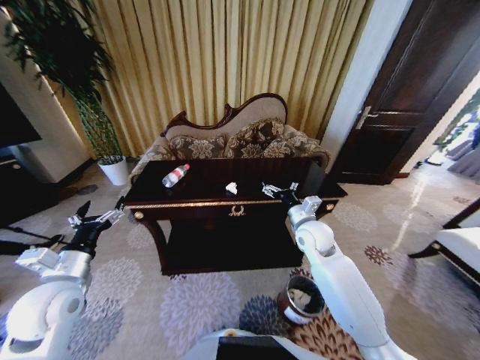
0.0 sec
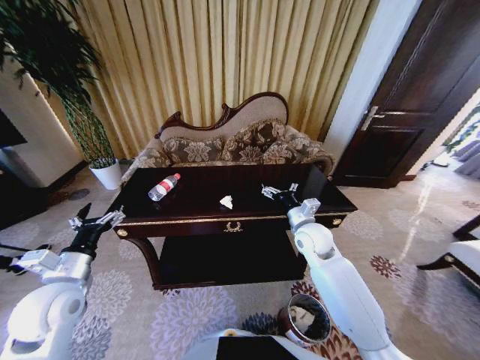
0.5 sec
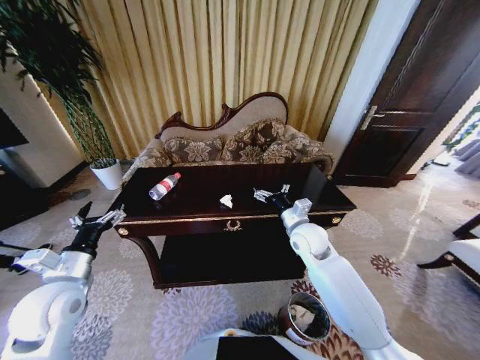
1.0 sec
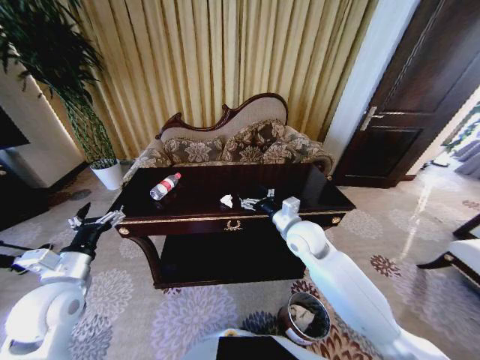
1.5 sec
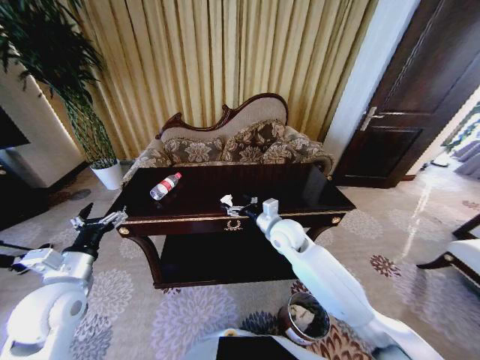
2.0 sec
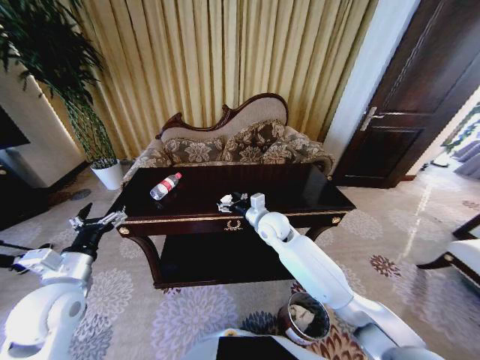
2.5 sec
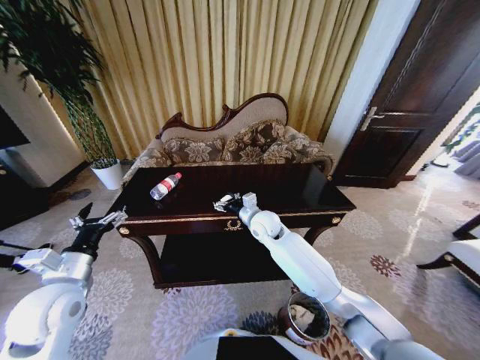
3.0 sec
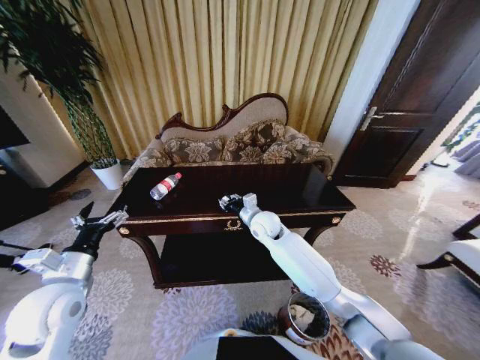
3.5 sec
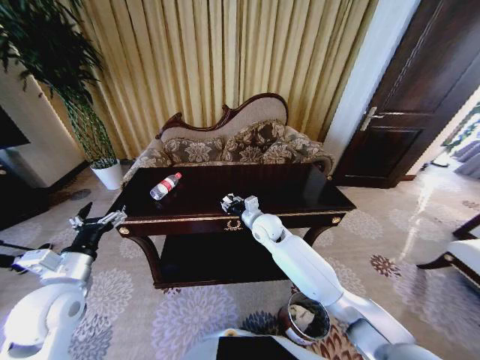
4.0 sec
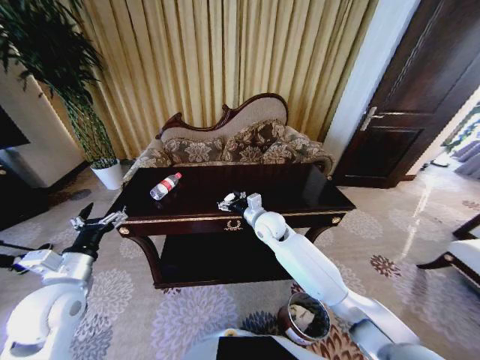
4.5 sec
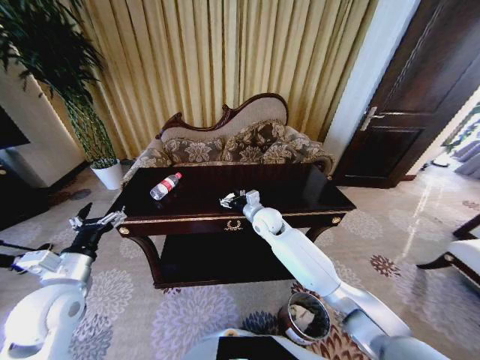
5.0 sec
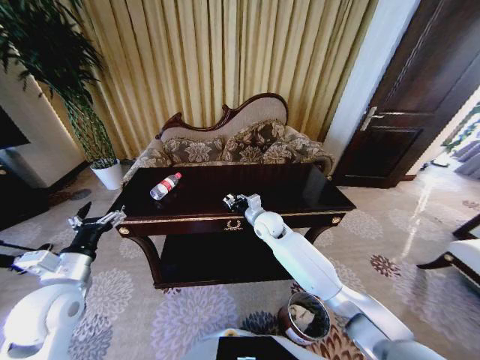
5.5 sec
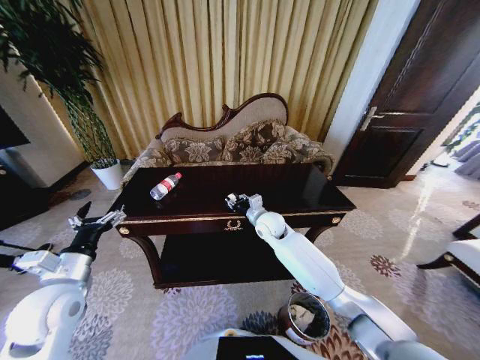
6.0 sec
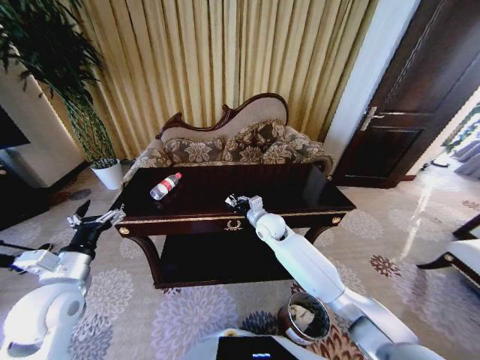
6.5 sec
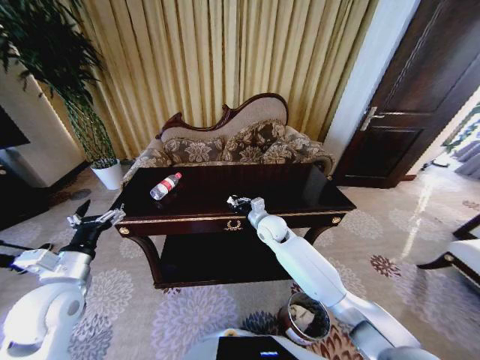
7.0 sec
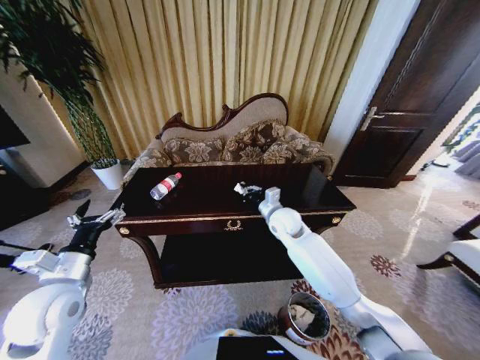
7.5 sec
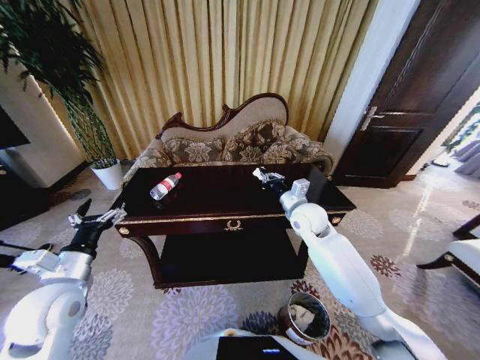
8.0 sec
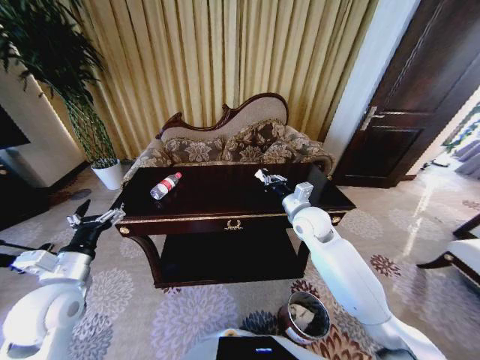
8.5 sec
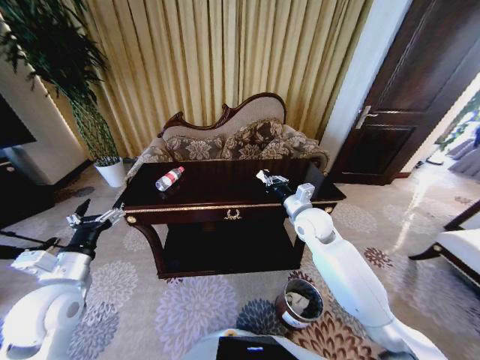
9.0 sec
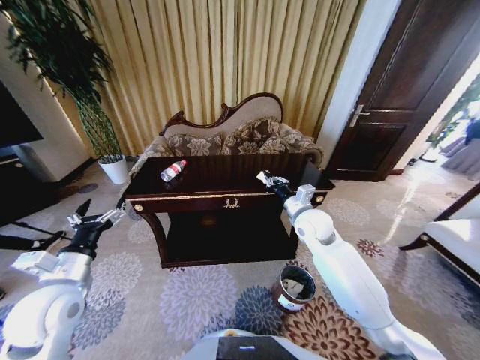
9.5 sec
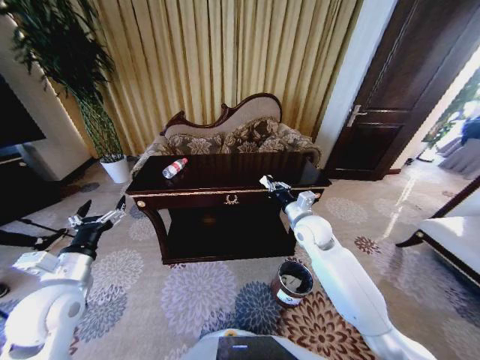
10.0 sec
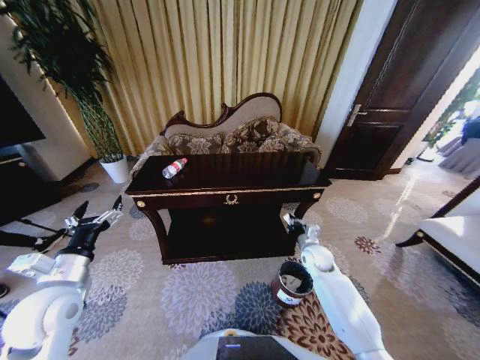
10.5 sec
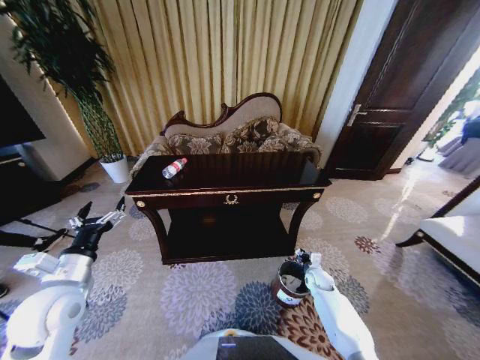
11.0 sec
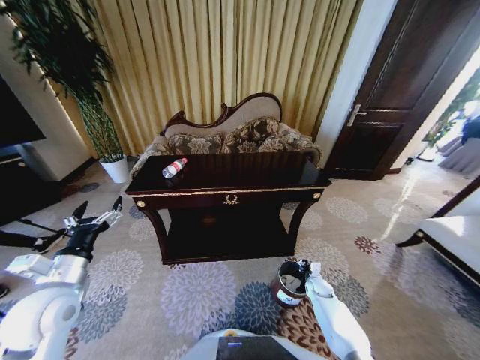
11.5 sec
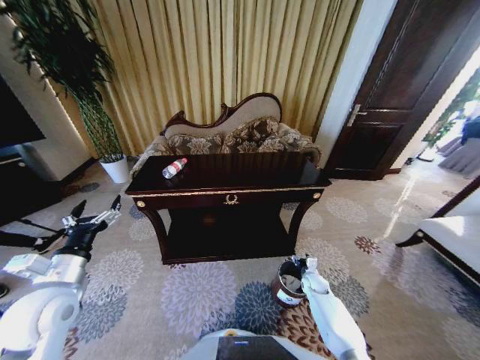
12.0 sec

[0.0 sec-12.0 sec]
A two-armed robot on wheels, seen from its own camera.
Task of the whole recording: Move to the front of the table and place the trash on the table into the trash bin.
0.0 sec to 2.0 sec: The right gripper moves to the left, approximately 10 cm.
2.0 sec to 4.0 sec: The right gripper shifts by some 5 cm, and closes.
4.0 sec to 6.0 sec: The right gripper opens and closes again.
6.0 sec to 8.0 sec: The right gripper heads to the right and upward, covering about 10 cm, and closes up.
10.0 sec to 12.0 sec: The right gripper shifts about 30 cm downward, and opens its fingers.

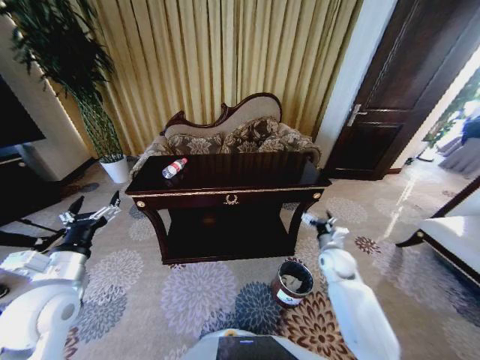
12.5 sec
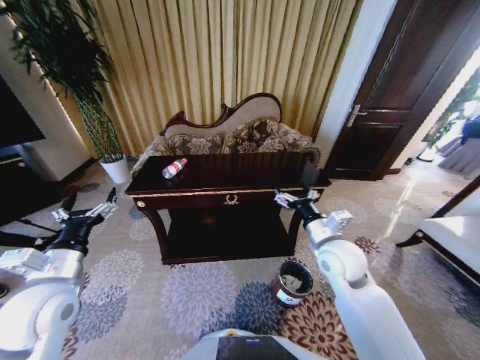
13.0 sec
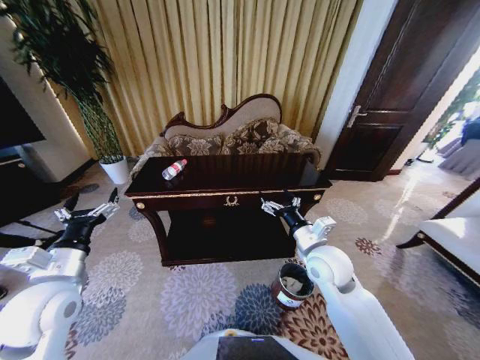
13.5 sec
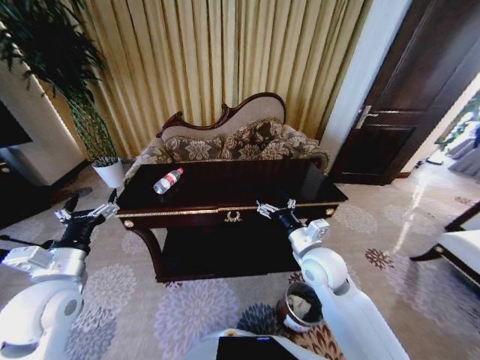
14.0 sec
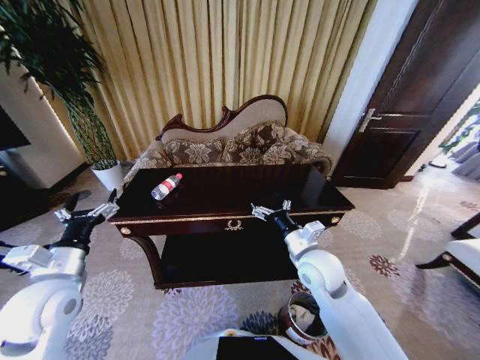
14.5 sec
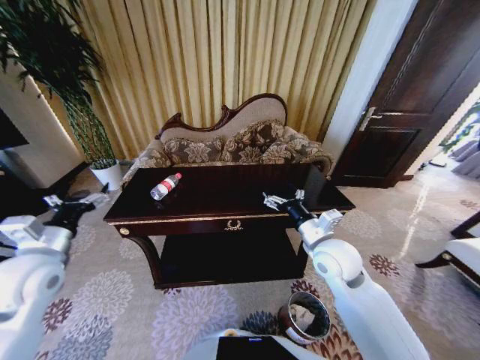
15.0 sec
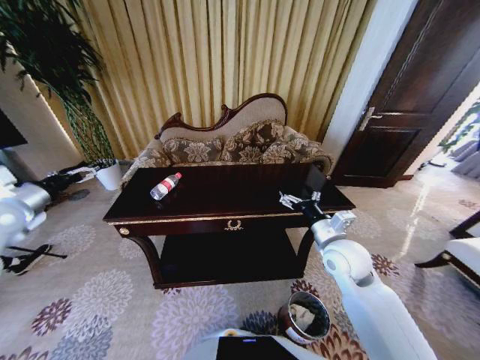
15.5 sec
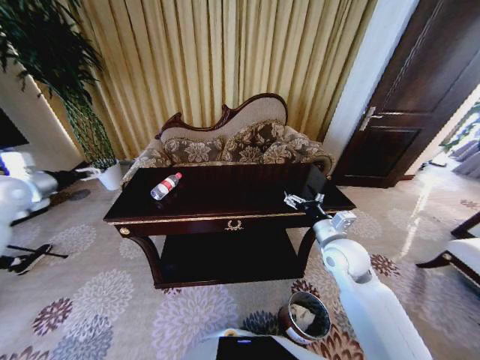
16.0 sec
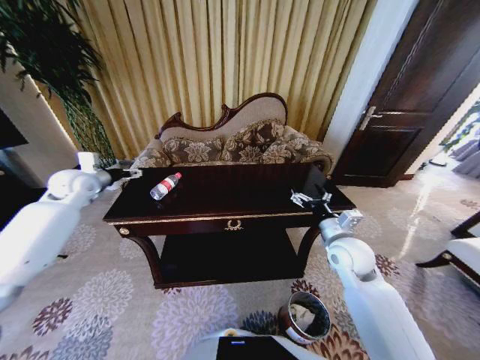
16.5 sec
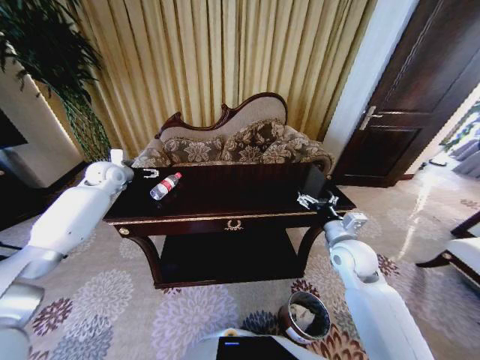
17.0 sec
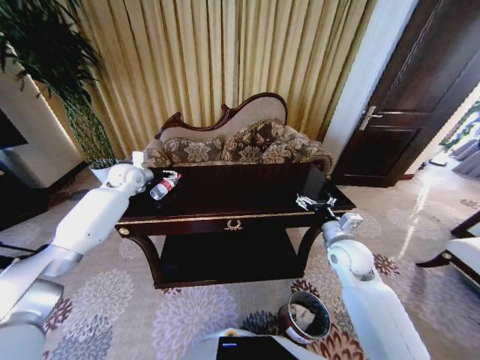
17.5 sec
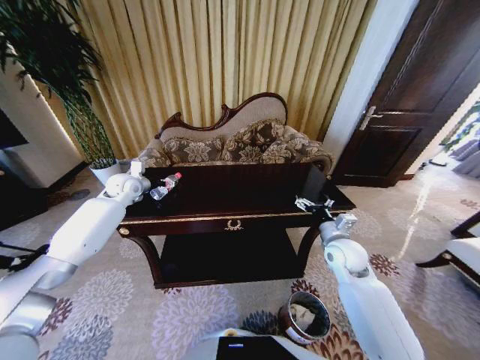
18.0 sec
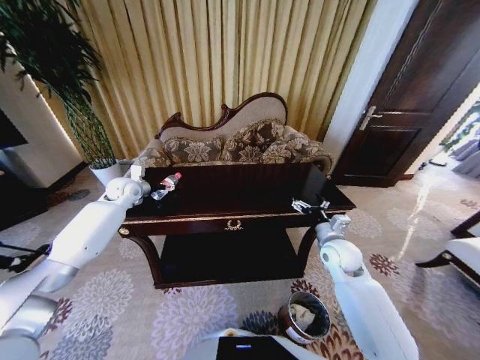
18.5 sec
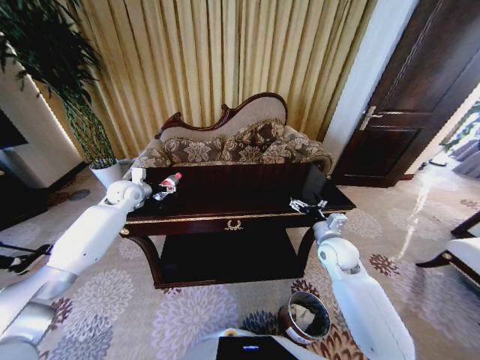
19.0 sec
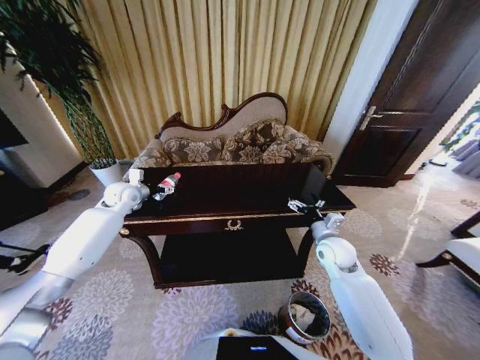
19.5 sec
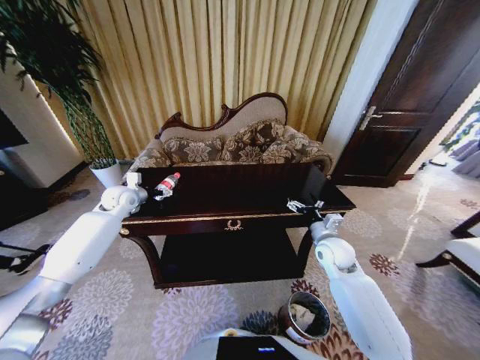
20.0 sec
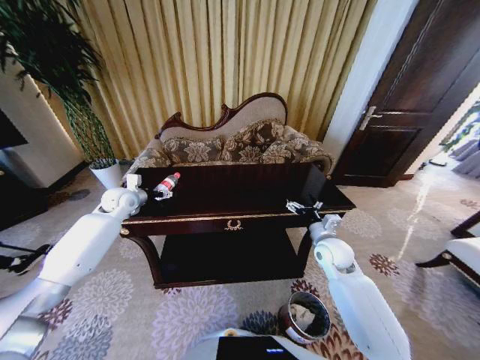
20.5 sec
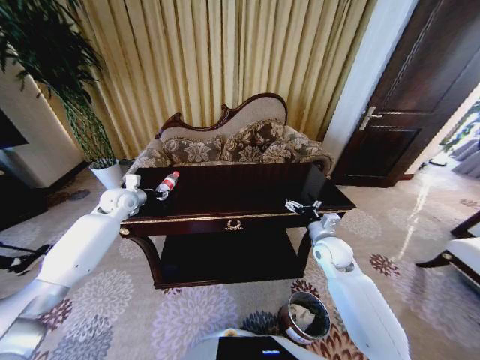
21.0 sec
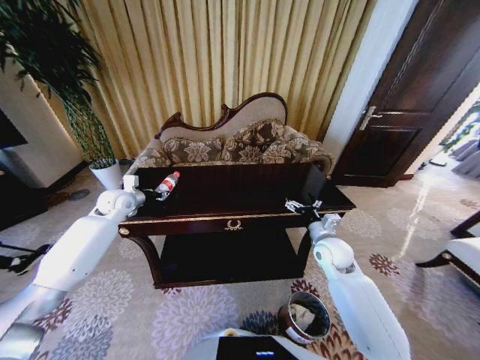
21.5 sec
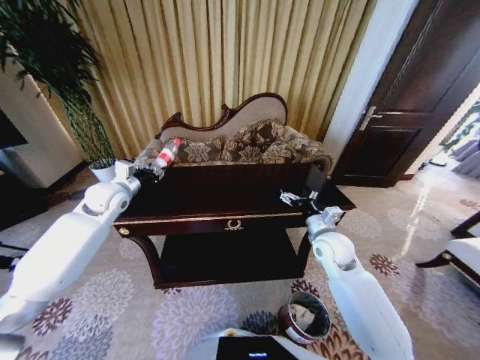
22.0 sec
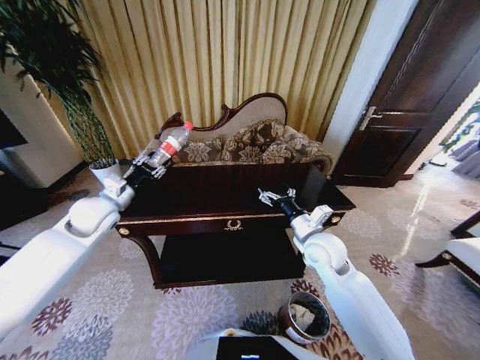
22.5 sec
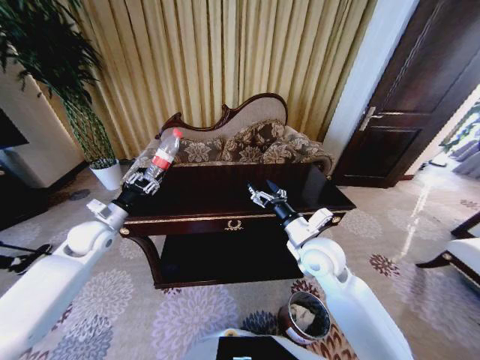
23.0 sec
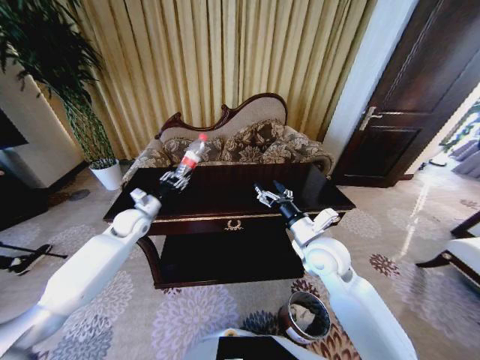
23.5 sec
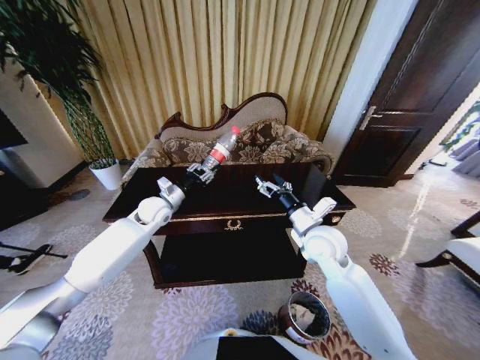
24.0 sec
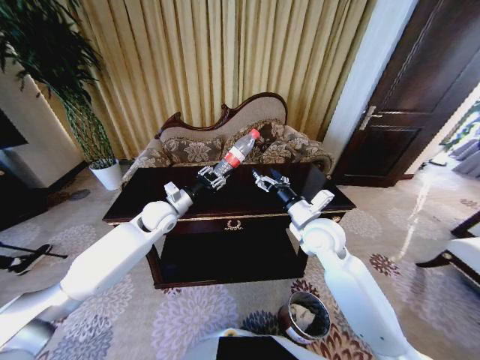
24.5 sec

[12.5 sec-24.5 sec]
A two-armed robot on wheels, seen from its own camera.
Task of the whole recording: Move to the front of the table and place the trash on the table into the trash bin.
12.5 sec to 14.5 sec: The right gripper travels to the left, upward and backward by approximately 20 cm.
14.5 sec to 16.5 sec: The left gripper is displaced forward by some 30 cm, while the right gripper is displaced to the right by some 10 cm.
16.5 sec to 18.5 sec: The right gripper travels downward by approximately 5 cm. Meanwhile the left gripper shifts some 10 cm to the right, downward and forward.
18.5 sec to 20.5 sec: The grippers make only small movements.
20.5 sec to 22.5 sec: The left gripper is displaced backward and upward by some 10 cm, and closes. The right gripper moves upward and to the left, approximately 10 cm.
22.5 sec to 24.5 sec: The left gripper travels to the right and downward by roughly 15 cm.

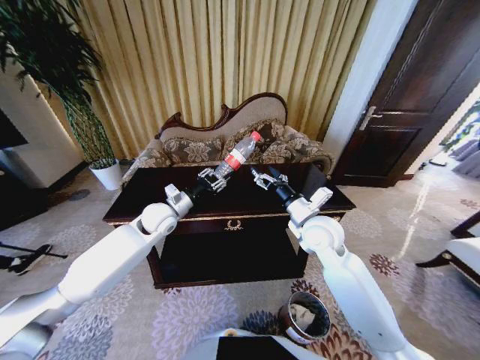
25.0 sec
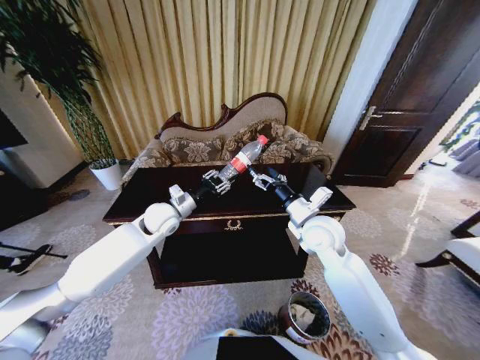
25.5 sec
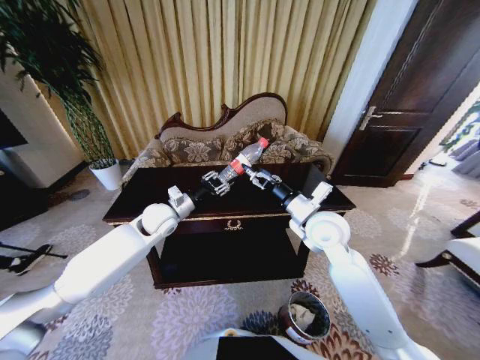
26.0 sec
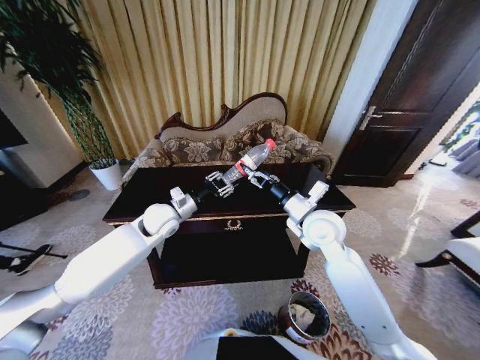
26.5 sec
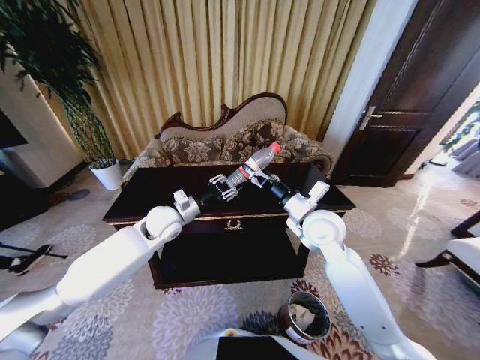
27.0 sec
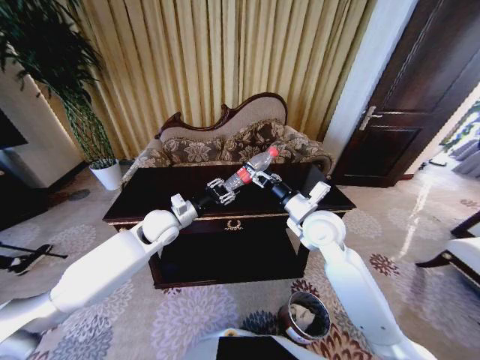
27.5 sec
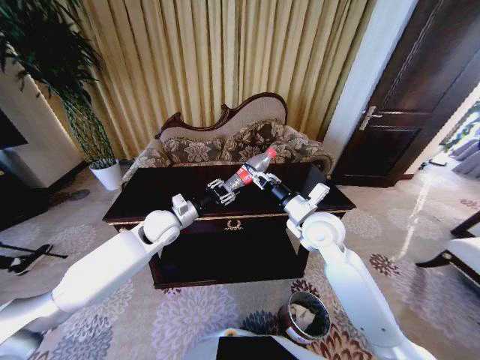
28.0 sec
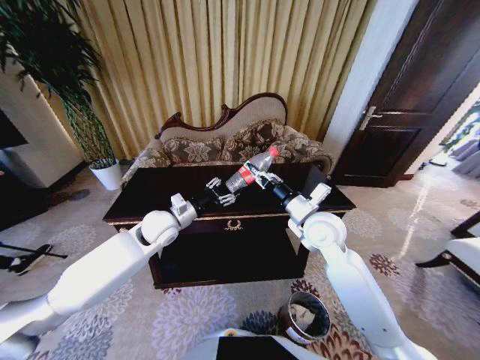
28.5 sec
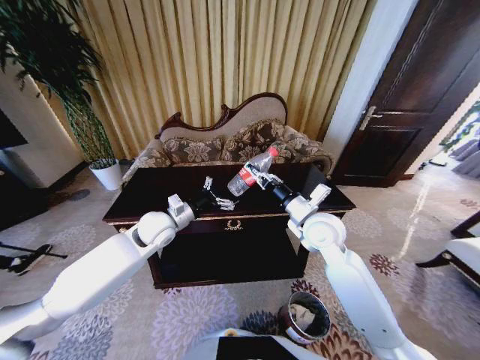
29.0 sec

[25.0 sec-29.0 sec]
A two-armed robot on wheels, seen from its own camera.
Task of the whole recording: Move to the front of the table and place the trash on the table into the trash bin.
25.0 sec to 27.0 sec: The grippers move only a little.
27.0 sec to 29.0 sec: The right gripper closes its fingers. The left gripper opens its fingers.
